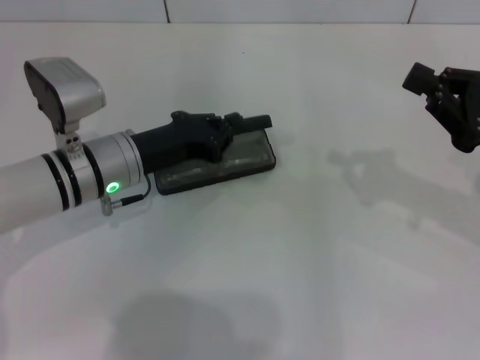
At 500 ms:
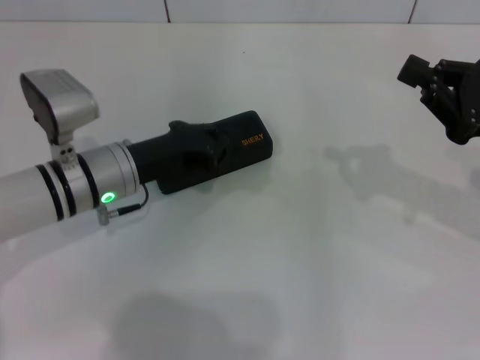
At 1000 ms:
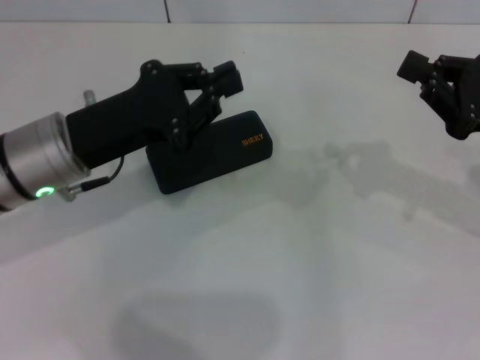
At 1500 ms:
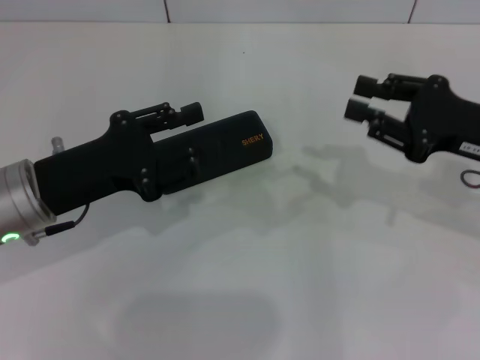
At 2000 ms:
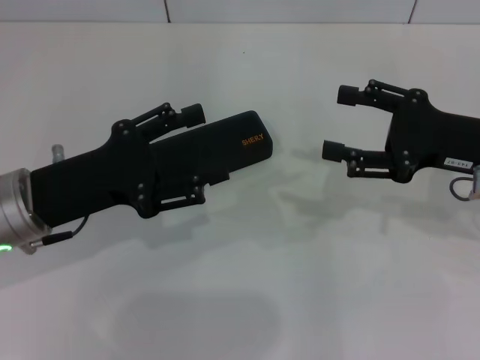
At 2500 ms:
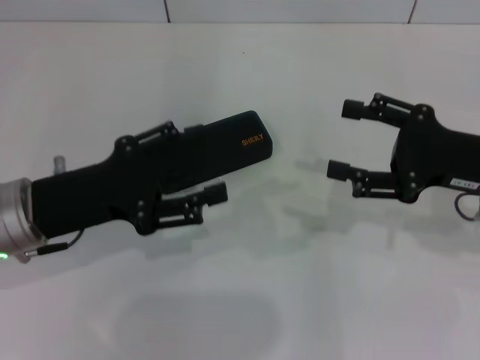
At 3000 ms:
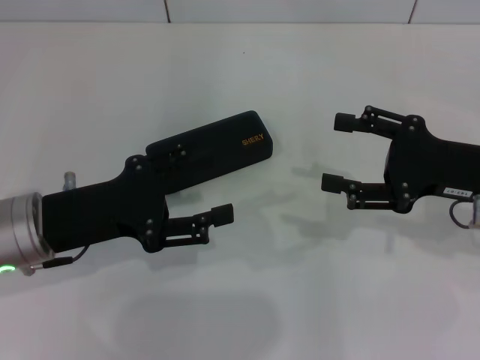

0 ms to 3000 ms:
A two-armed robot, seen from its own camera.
0 ms to 1500 ms: The left gripper moves backward and to the left, roughly 10 cm.
1500 ms to 3000 ms: The right gripper opens, while the left gripper opens.

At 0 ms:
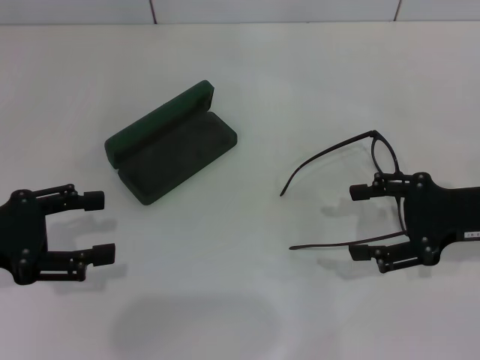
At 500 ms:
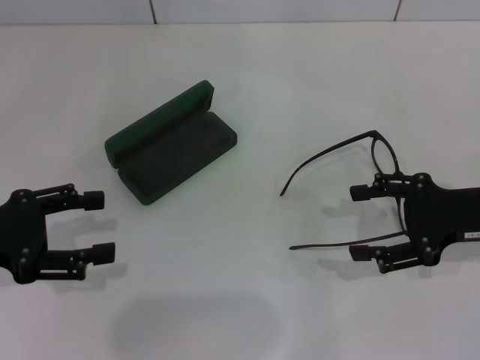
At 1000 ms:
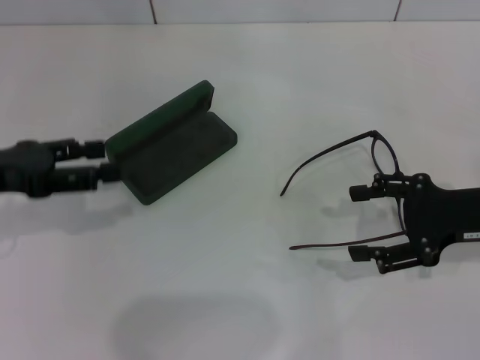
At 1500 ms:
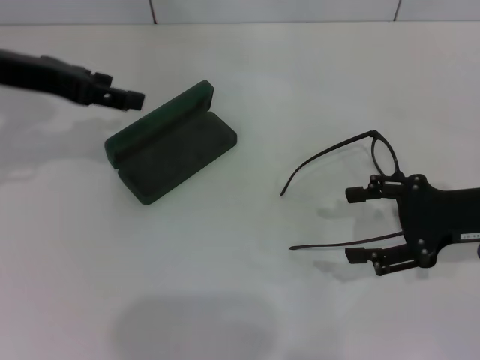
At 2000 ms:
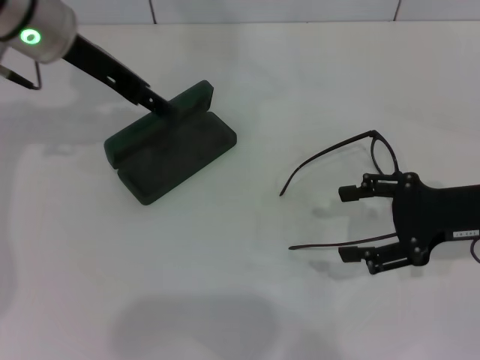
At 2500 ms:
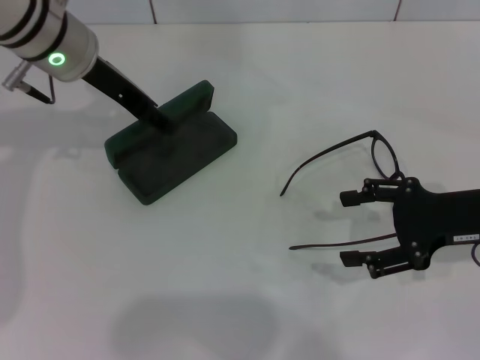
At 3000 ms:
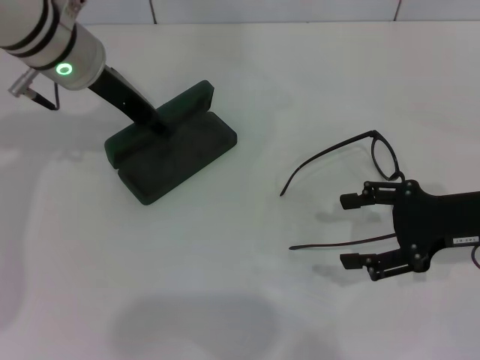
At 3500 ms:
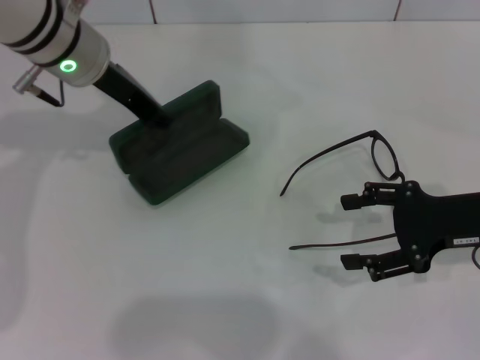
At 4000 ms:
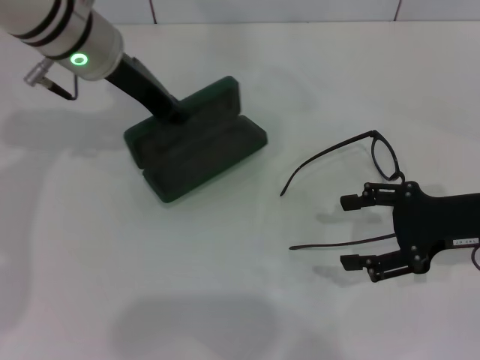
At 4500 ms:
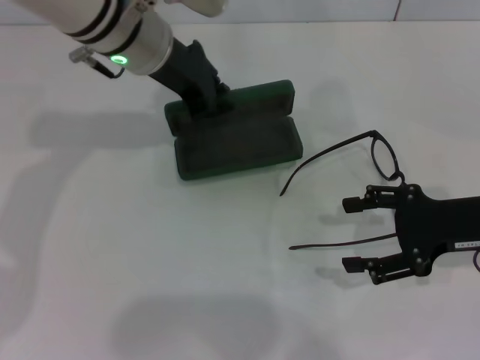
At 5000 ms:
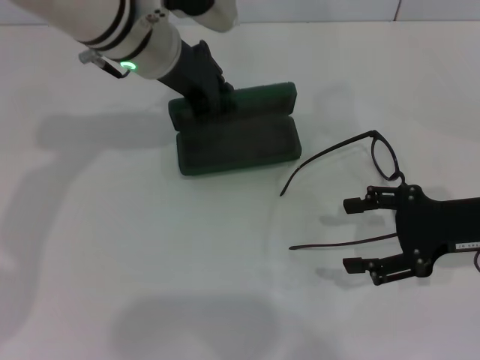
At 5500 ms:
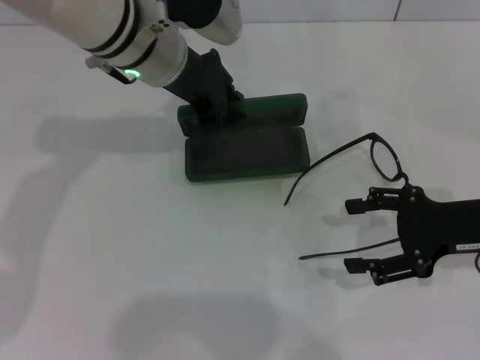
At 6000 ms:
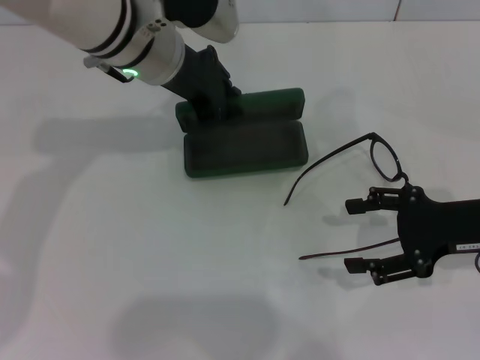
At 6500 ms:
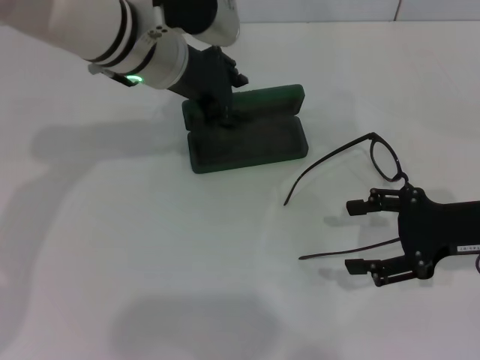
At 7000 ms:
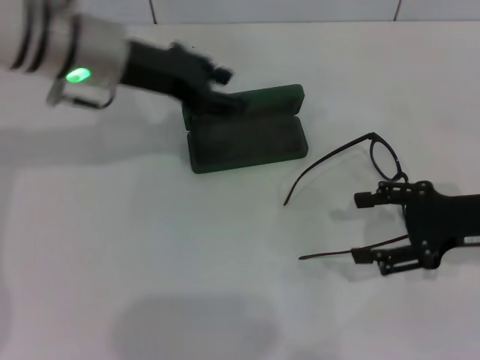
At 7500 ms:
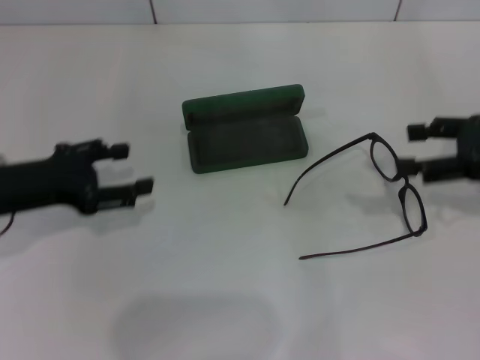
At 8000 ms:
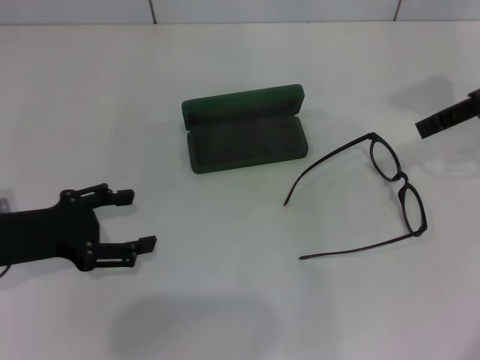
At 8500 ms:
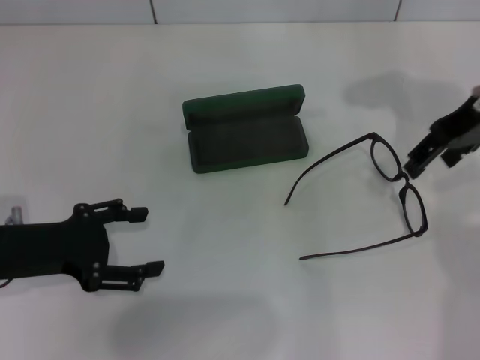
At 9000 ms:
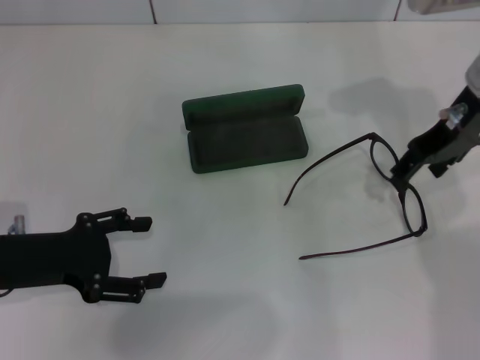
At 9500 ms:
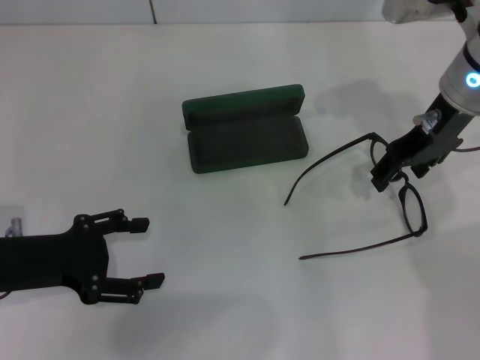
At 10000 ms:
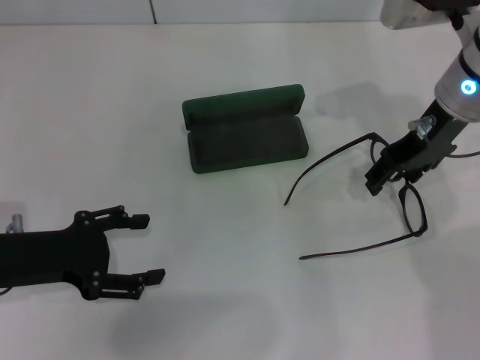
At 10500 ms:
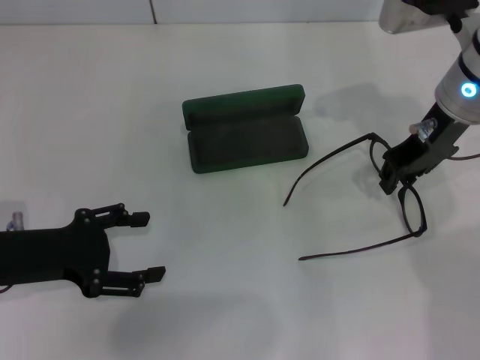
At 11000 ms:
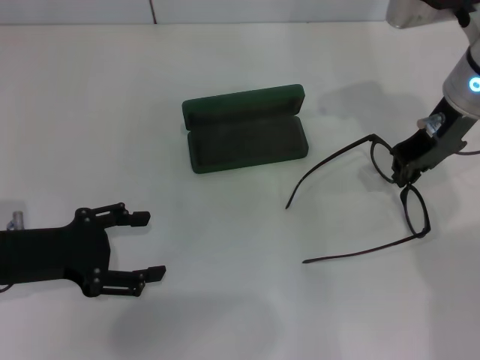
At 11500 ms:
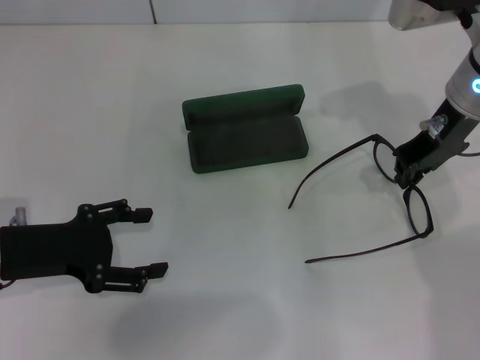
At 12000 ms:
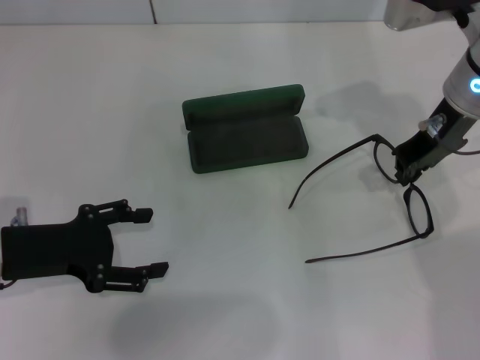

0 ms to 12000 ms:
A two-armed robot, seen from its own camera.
Step, 0 ms to 2500 ms: Grab the glasses case with your left hand.
Step, 3000 ms to 6000 ms: Place the glasses case in the center of the table with your left hand.
Step, 6500 ms to 10500 ms: Grab the eyeglass frame with your right hand.
0 ms to 2000 ms: The left gripper travels forward, to the right and upward by roughly 25 cm.
2000 ms to 4000 ms: The left gripper closes.
6000 ms to 8000 ms: The right gripper travels upward and forward by about 15 cm; the left gripper shifts roughly 25 cm to the left, backward and downward, and opens up.
8000 ms to 10000 ms: The right gripper heads to the left and downward, covering roughly 15 cm.
10000 ms to 12000 ms: The right gripper closes.

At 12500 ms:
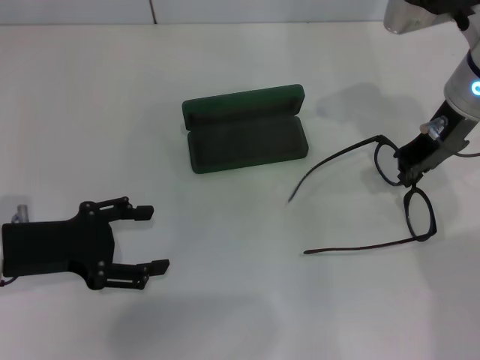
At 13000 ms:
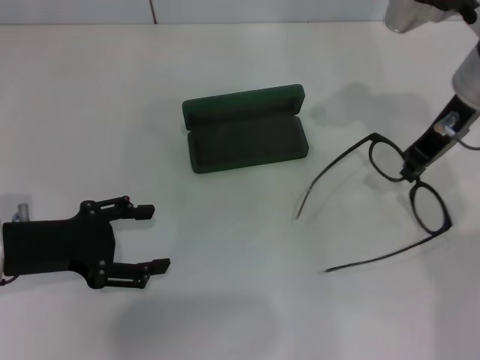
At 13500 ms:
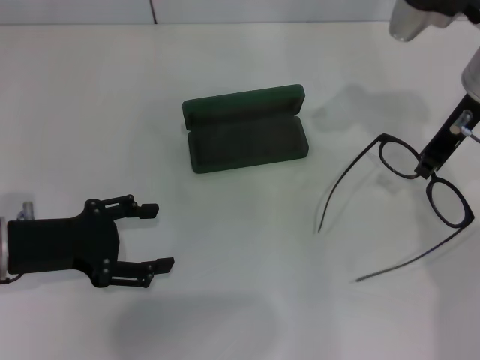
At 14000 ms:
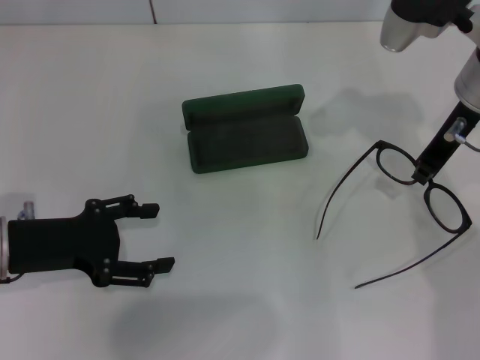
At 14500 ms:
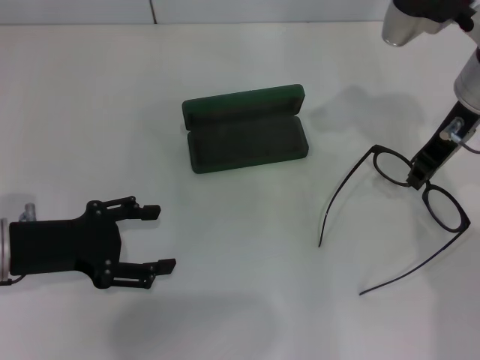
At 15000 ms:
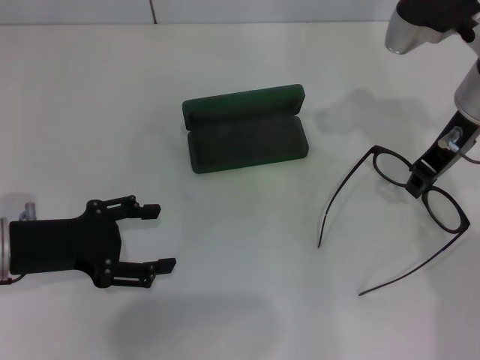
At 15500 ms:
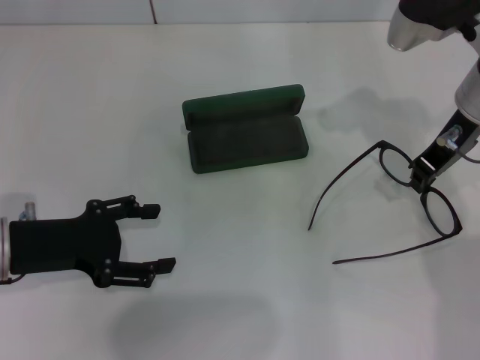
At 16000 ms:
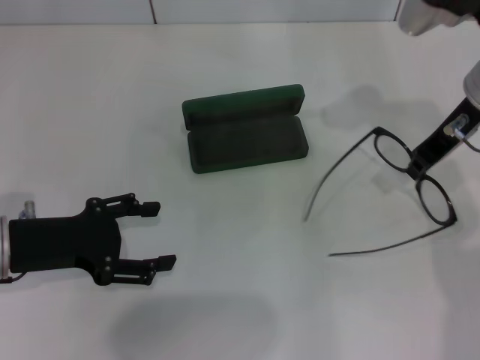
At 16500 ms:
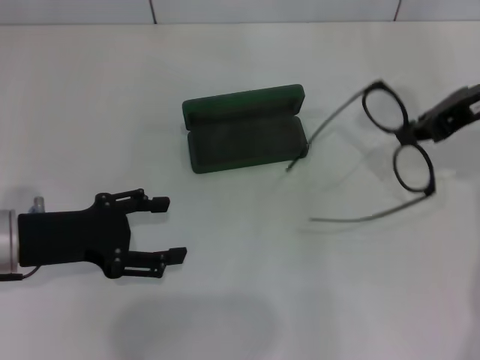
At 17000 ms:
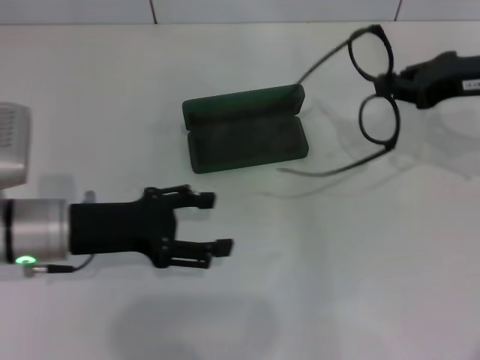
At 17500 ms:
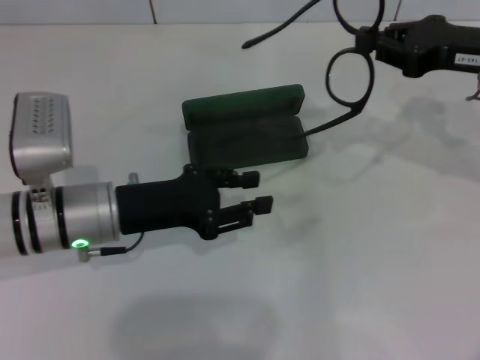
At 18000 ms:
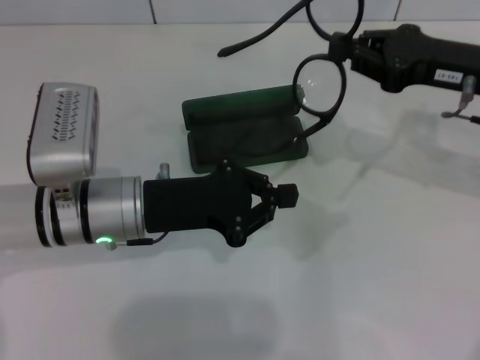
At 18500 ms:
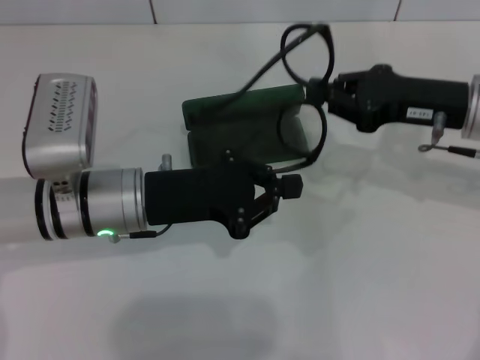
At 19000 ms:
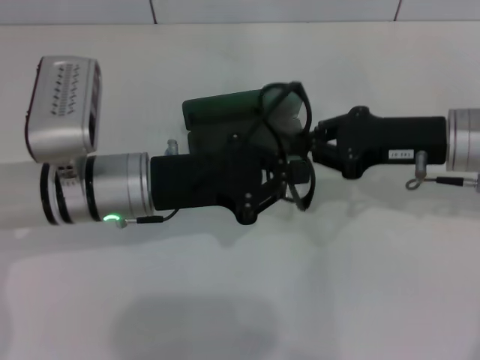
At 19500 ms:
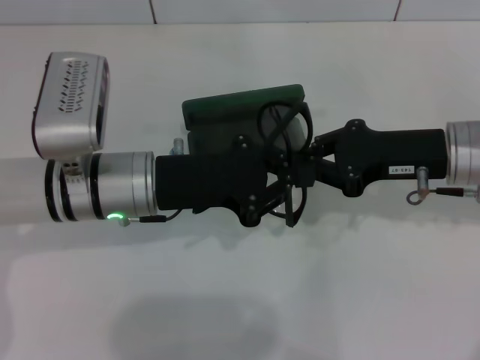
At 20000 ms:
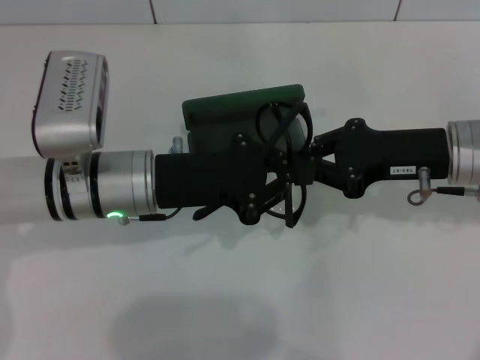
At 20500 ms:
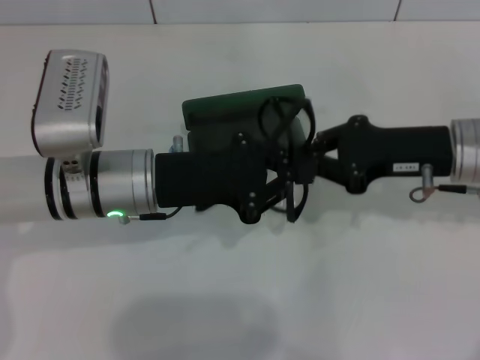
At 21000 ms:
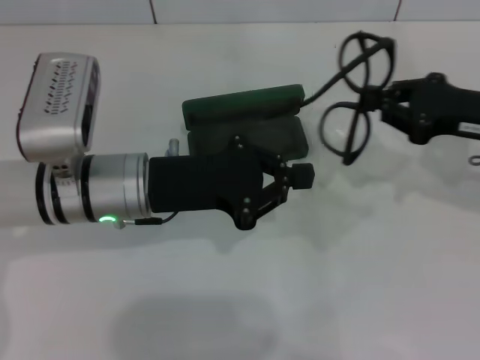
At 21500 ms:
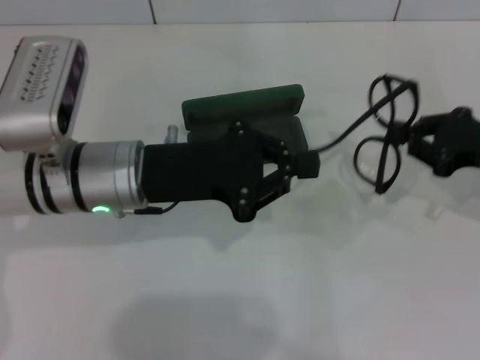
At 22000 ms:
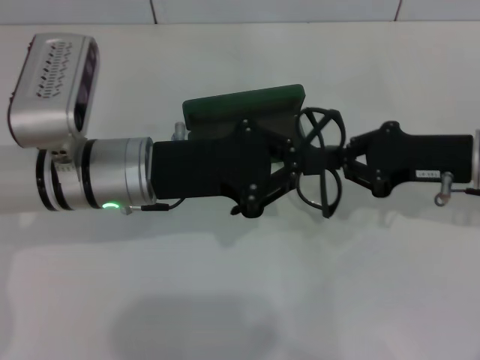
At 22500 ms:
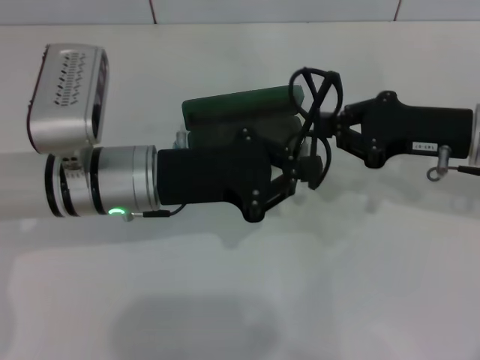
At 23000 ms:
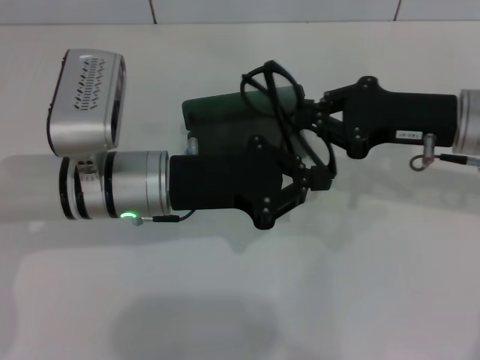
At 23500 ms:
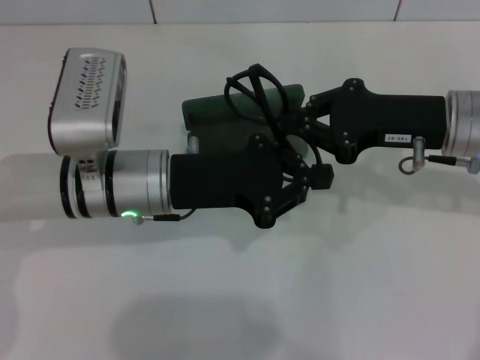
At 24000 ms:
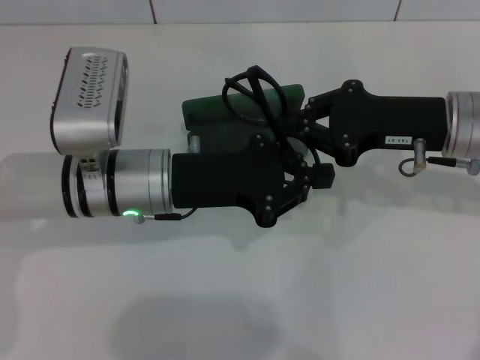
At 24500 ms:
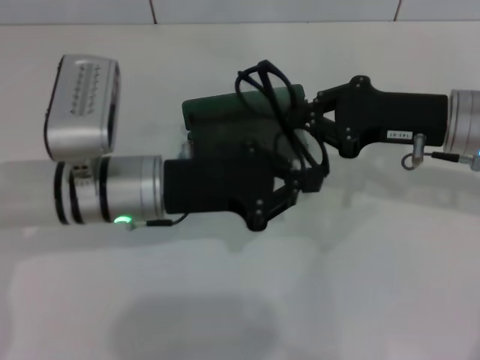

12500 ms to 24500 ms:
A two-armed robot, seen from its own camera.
Step, 12500 ms to 24500 ms: Fold the frame with your left hand.
14500 ms to 16500 ms: The right gripper travels to the right by some 5 cm.
16500 ms to 18500 ms: The right gripper travels downward by approximately 5 cm. Meanwhile the left gripper heads to the right, covering roughly 10 cm, and closes.
20500 ms to 22500 ms: The right gripper travels to the right and back again, roughly 10 cm each way.
22500 ms to 24500 ms: The grippers stay close to where they were, moving slightly.
